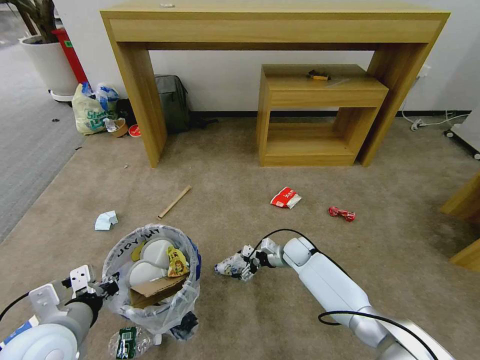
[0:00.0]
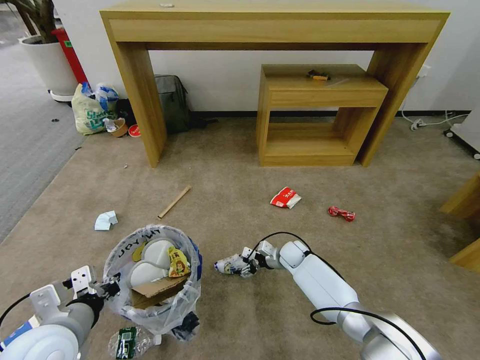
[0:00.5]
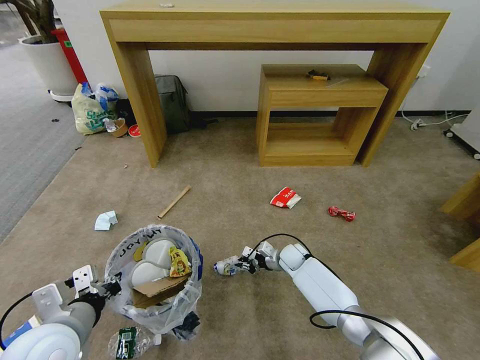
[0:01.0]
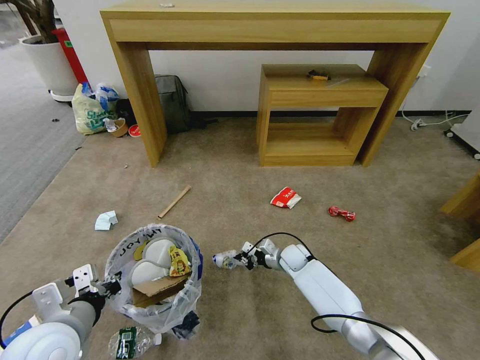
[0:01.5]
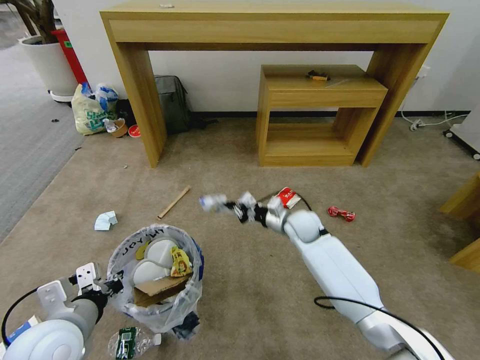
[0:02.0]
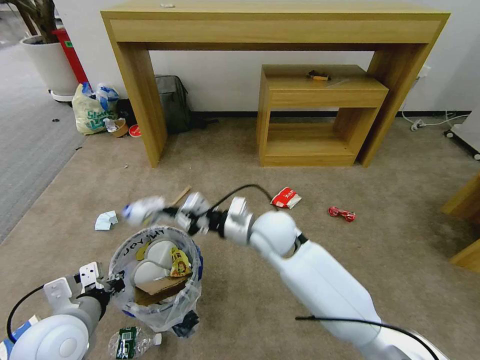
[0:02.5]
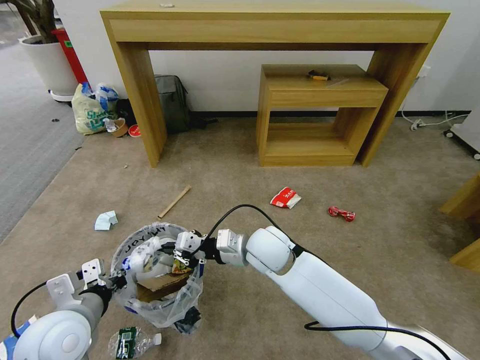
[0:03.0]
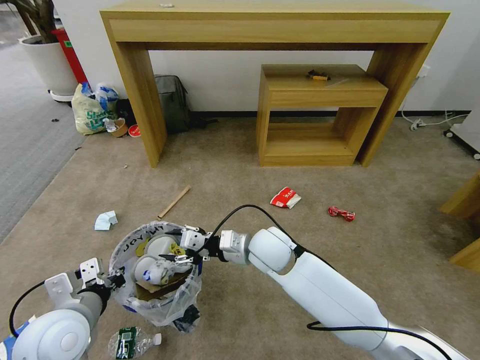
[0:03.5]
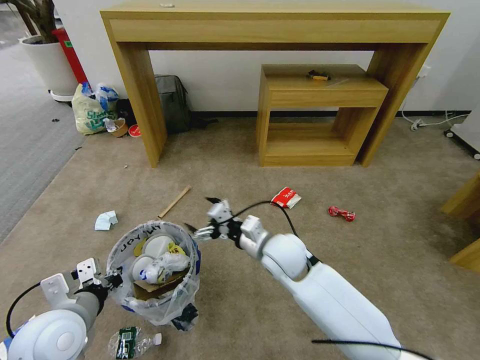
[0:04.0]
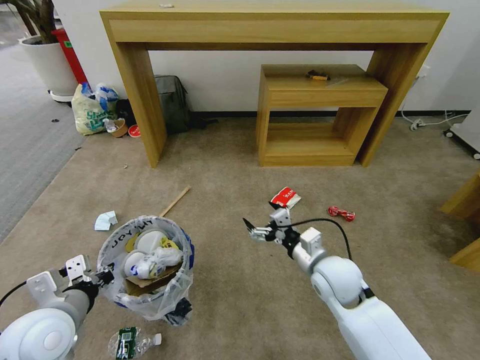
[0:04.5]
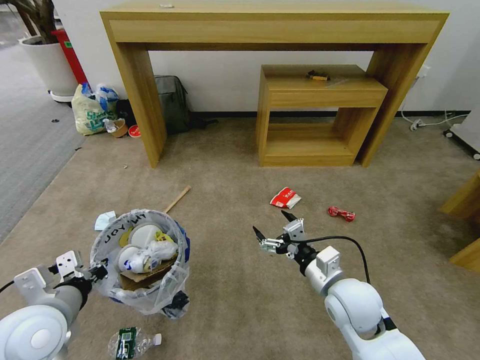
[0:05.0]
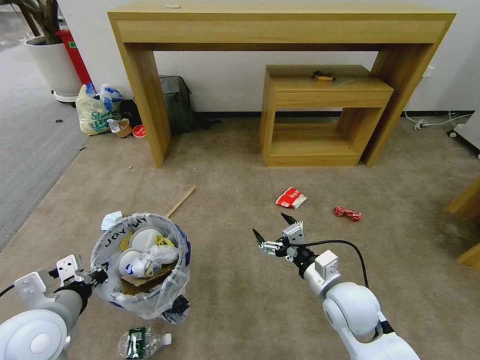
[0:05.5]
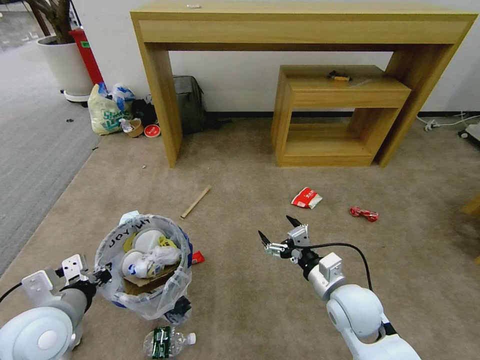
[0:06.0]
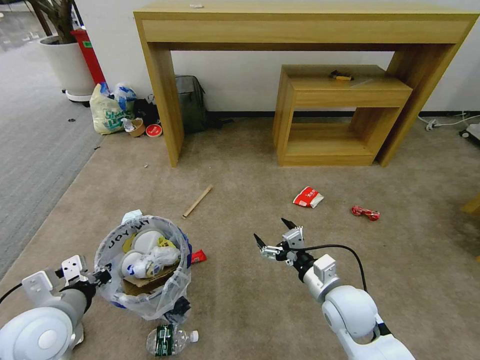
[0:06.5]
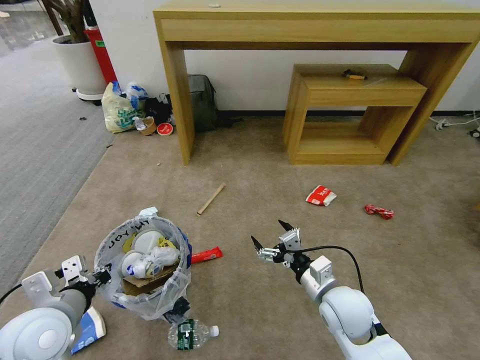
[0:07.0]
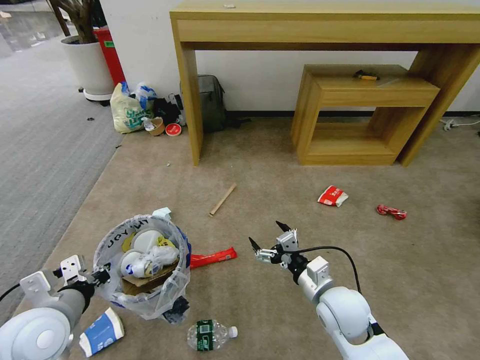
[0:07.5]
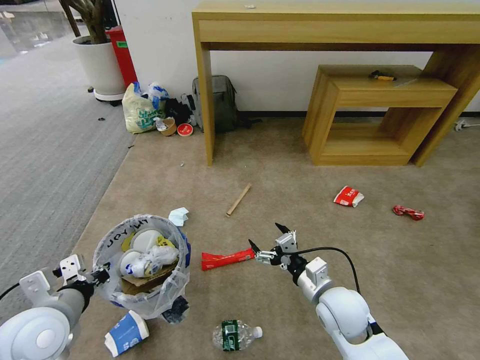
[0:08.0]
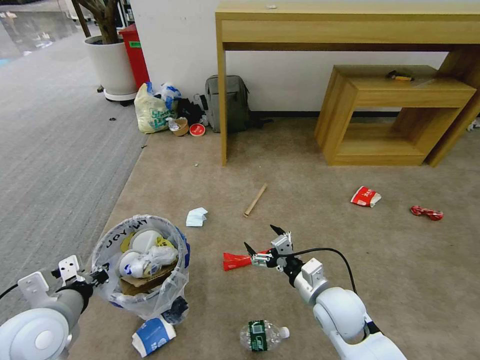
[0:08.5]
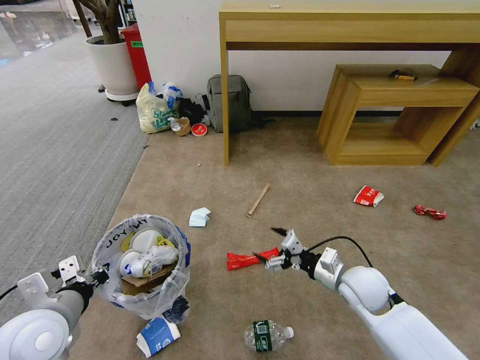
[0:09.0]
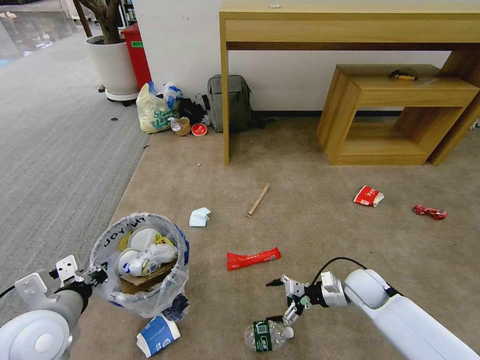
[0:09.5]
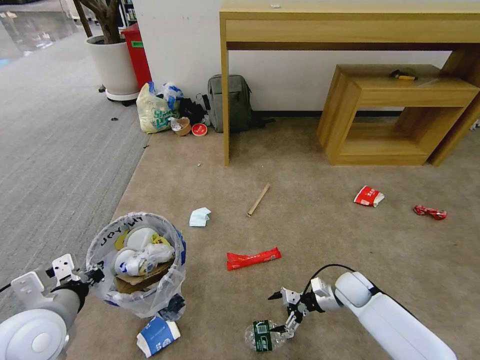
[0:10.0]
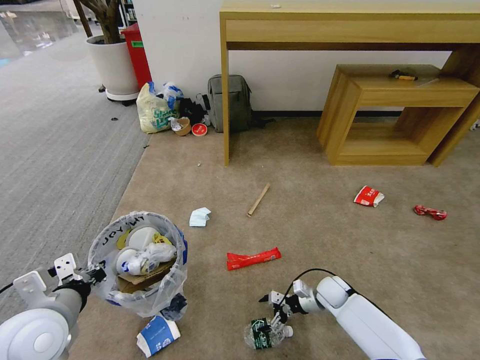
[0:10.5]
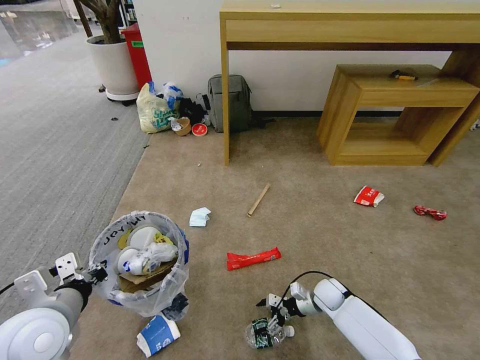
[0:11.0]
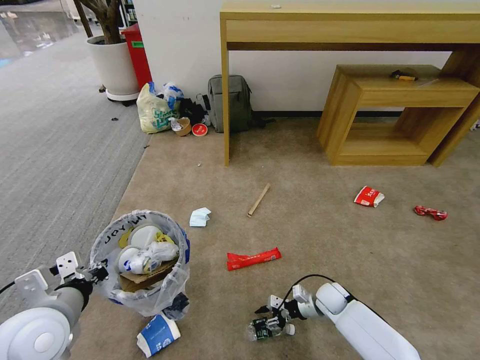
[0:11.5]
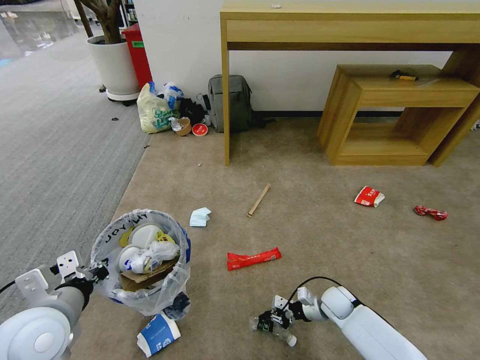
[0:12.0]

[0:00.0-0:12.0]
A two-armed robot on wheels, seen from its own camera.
Task of the whole recording: Pick up the trash bin and place the garbage on the floor into it.
0:00.0 to 0:02.0: The right gripper heads upward, covering roughly 15 cm, and closes.
0:02.0 to 0:04.0: The right gripper goes approximately 15 cm backward, to the left and upward, and opens its fingers.
0:04.0 to 0:06.0: The right gripper goes roughly 15 cm to the right and backward.
0:08.0 to 0:10.0: The right gripper shifts approximately 20 cm downward, to the right and forward.
0:10.0 to 0:12.0: The right gripper shifts roughly 5 cm downward, and closes.

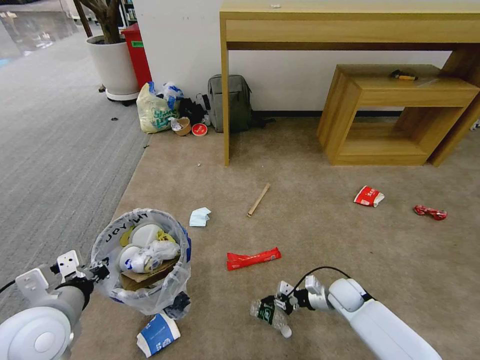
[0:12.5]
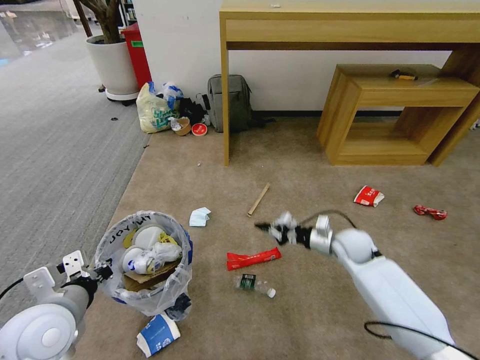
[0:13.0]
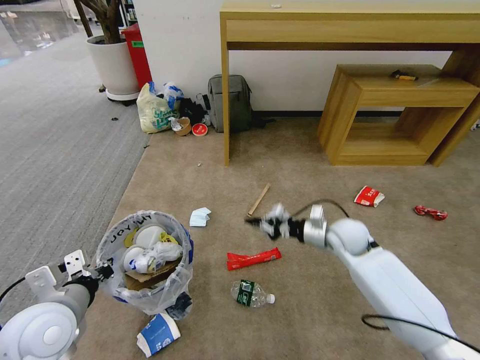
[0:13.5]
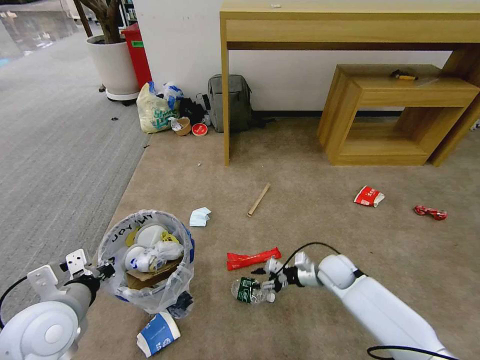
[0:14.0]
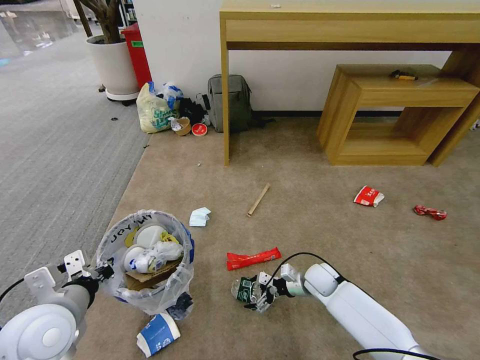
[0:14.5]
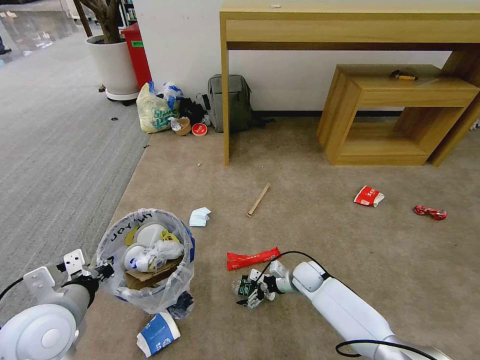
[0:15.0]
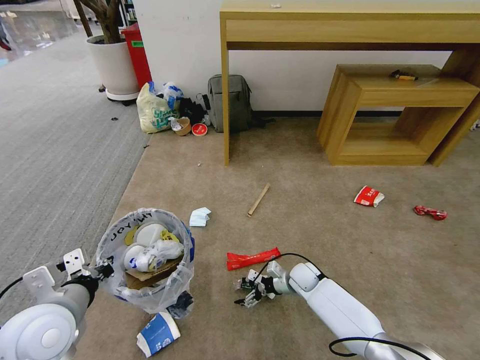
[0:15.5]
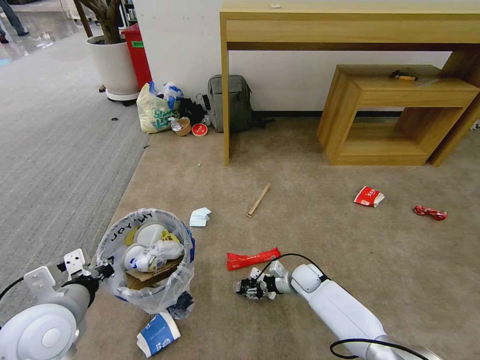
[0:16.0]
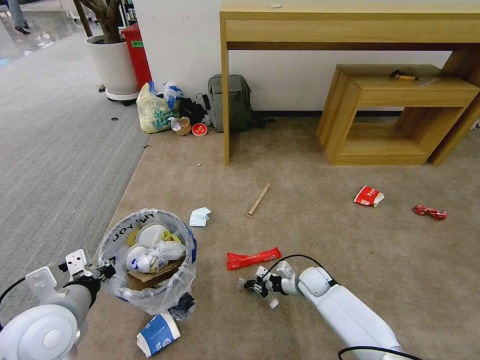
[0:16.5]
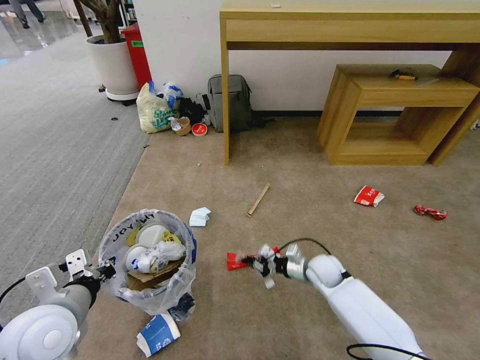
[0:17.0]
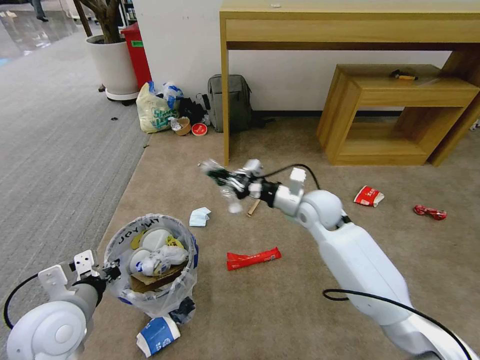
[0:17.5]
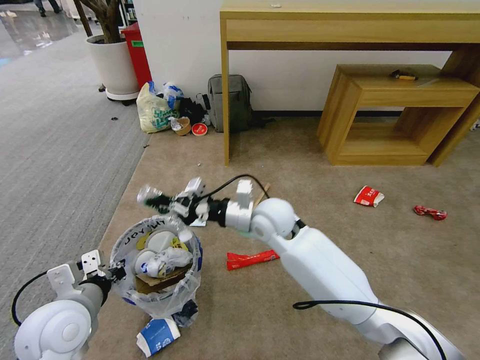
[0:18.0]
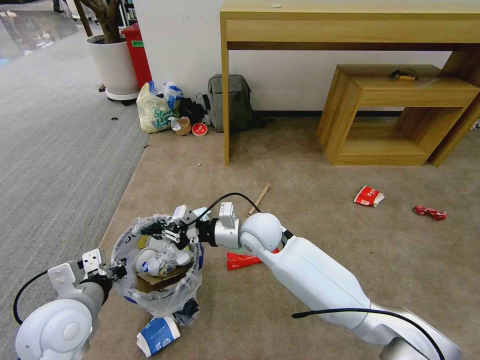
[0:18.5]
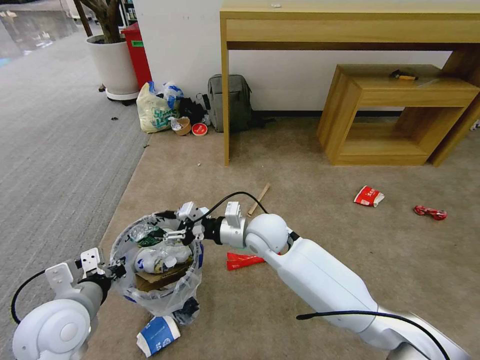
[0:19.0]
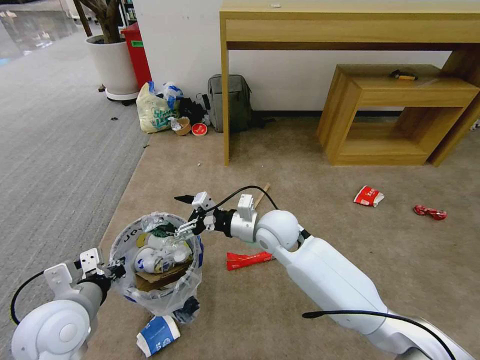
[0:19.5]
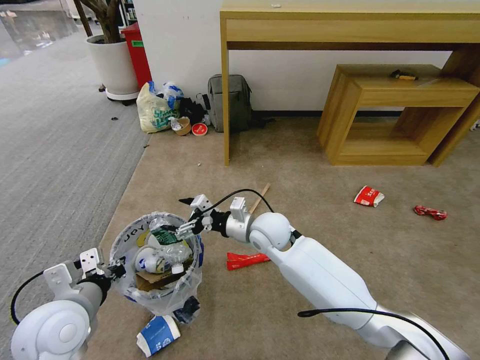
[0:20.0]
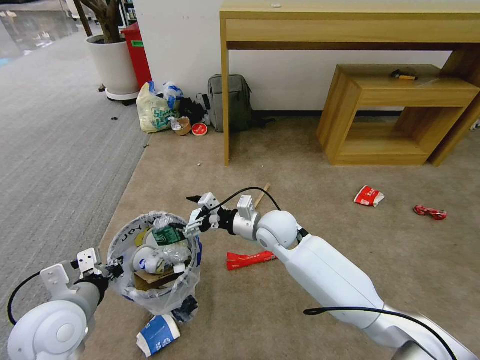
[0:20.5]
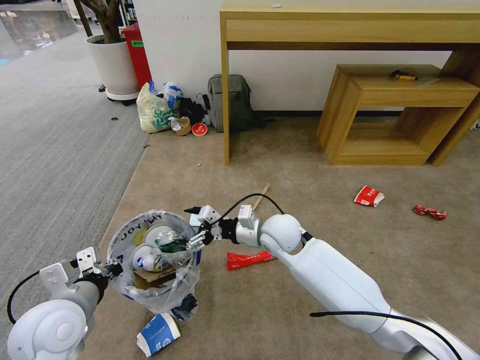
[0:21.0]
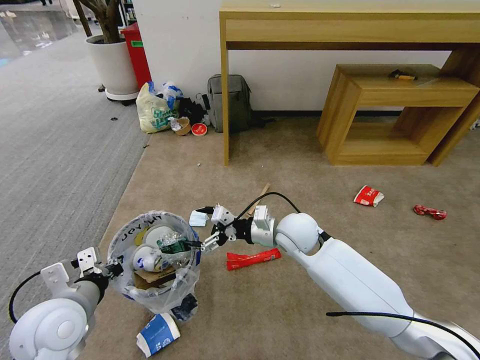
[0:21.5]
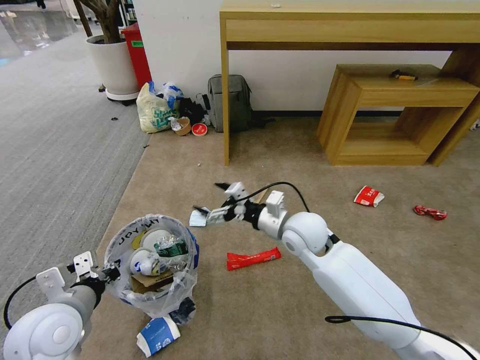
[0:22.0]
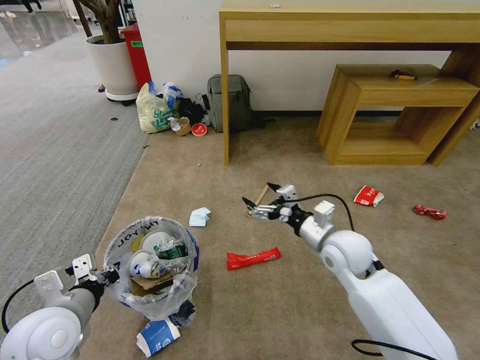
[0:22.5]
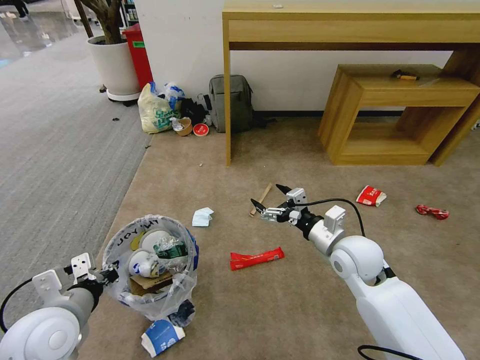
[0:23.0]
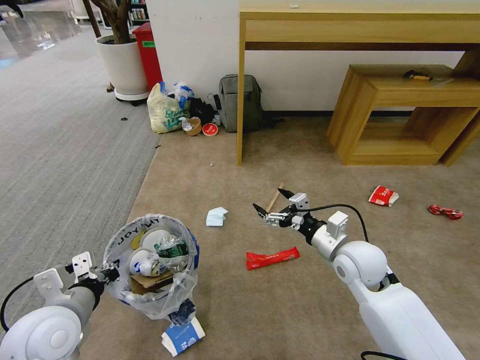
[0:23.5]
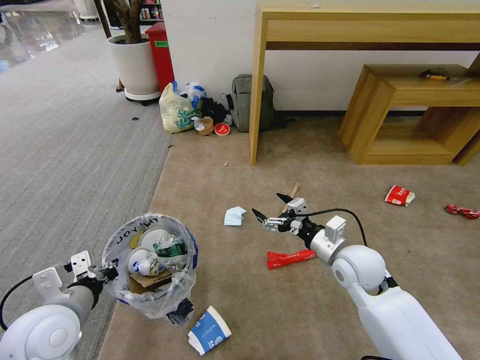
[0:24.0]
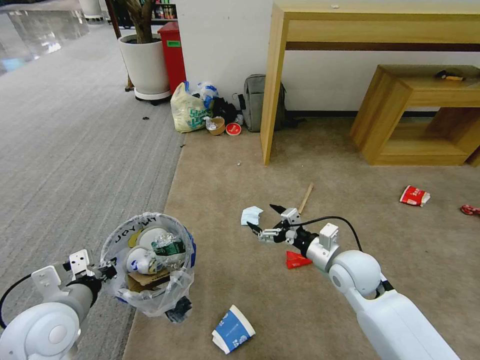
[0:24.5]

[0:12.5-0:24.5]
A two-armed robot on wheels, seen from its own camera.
Task of the whole recording: Pick up the trash bin and place the garbage on the floor into it.
0:12.5 to 0:14.5: The right gripper is displaced to the left by some 5 cm, reaches about 20 cm upward, then returns, and opens its fingers.
0:14.5 to 0:16.5: The right gripper closes up.
0:16.5 to 0:18.5: The right gripper moves upward and to the left, some 30 cm.
0:18.5 to 0:20.5: The right gripper opens up.
0:20.5 to 0:22.5: The right gripper moves to the right and backward, roughly 15 cm.
0:22.5 to 0:24.5: The right gripper ends up some 5 cm from where it was.

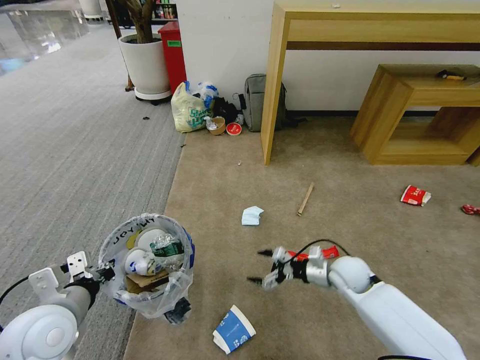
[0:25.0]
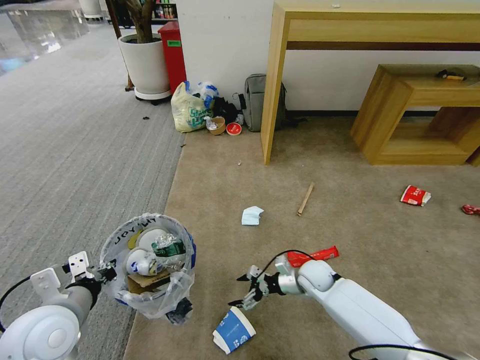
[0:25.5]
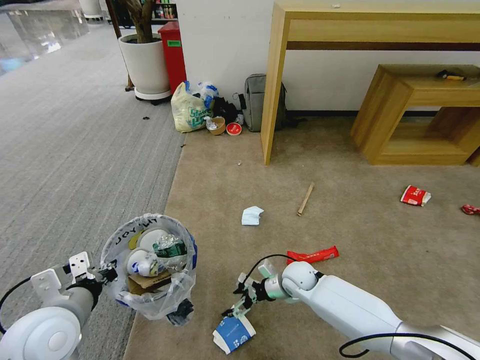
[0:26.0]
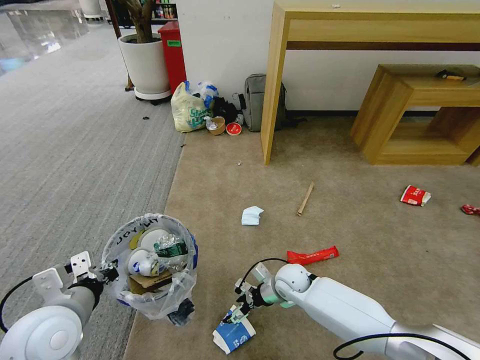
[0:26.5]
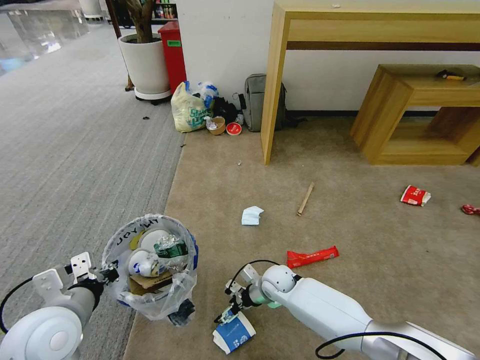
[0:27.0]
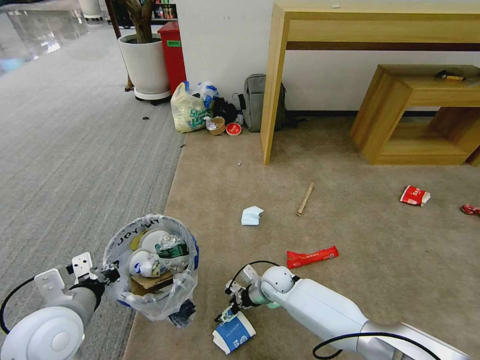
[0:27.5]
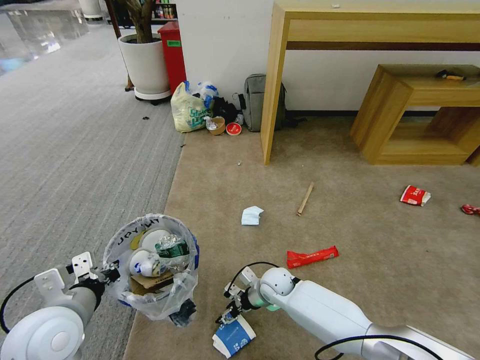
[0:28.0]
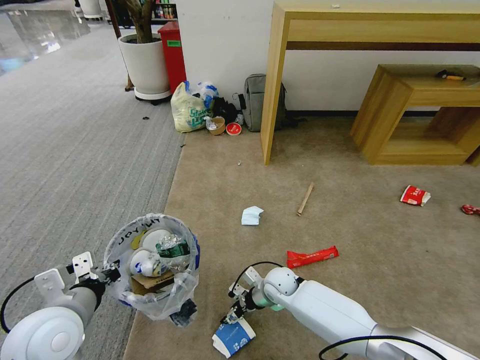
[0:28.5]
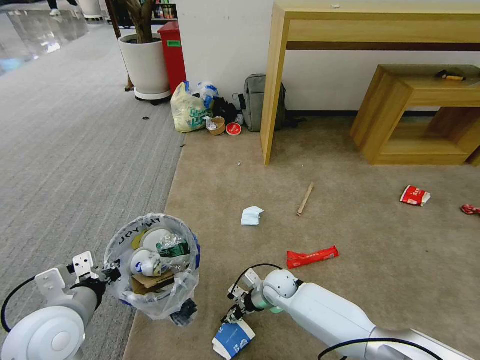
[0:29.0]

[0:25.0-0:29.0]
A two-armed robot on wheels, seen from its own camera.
Task of the whole recording: Pick up the trash bin and place the garbage on the floor into it.
0:25.0 to 0:27.0: The right gripper moves to the left and downward, roughly 20 cm.
0:27.0 to 0:29.0: The right gripper closes its fingers.
